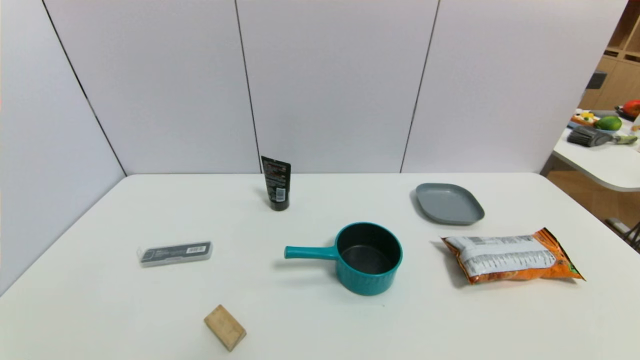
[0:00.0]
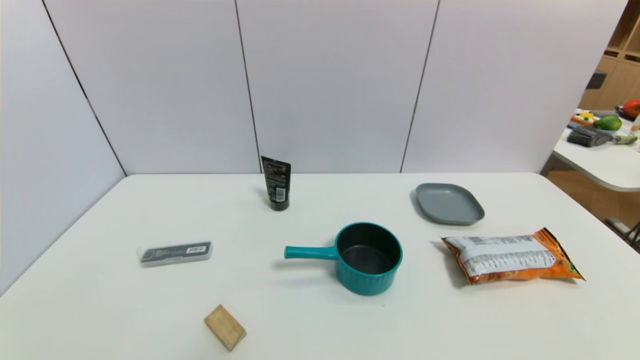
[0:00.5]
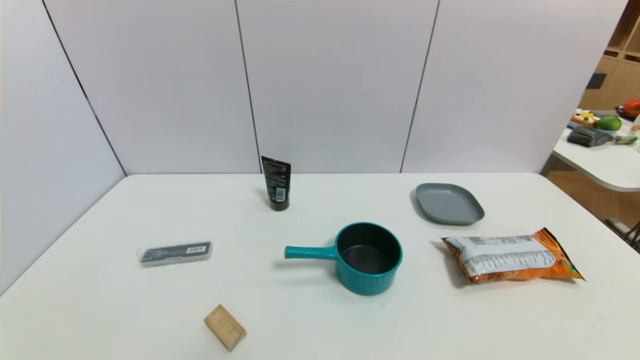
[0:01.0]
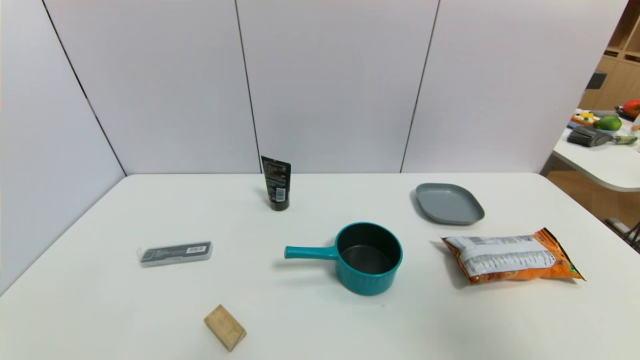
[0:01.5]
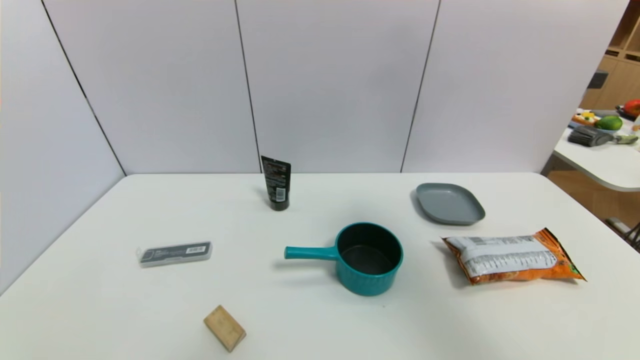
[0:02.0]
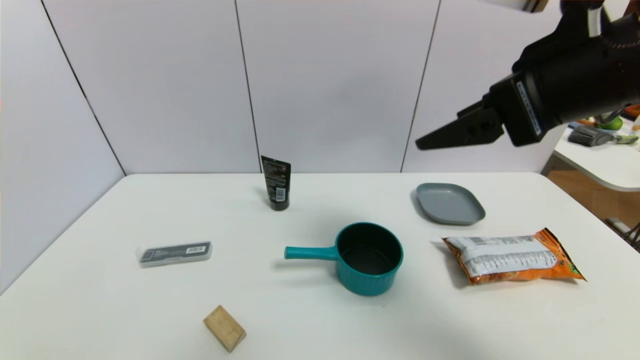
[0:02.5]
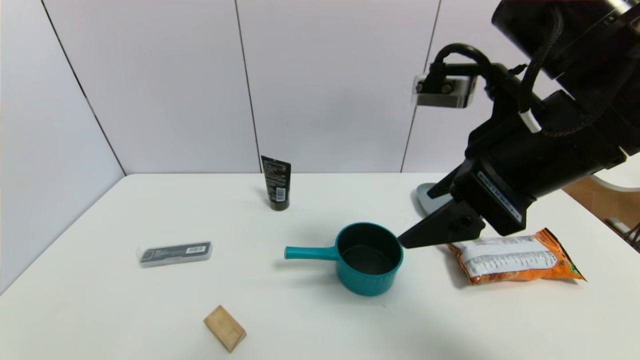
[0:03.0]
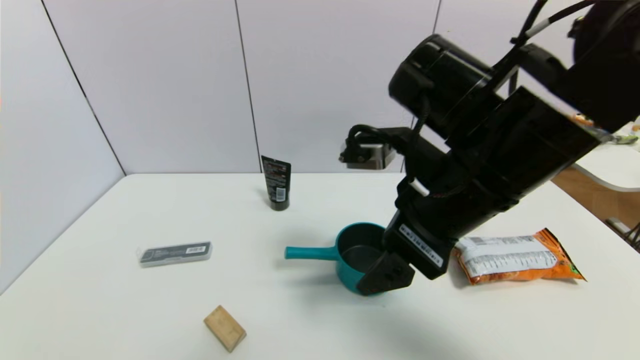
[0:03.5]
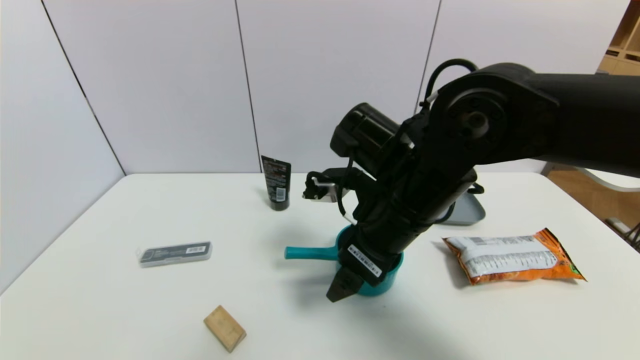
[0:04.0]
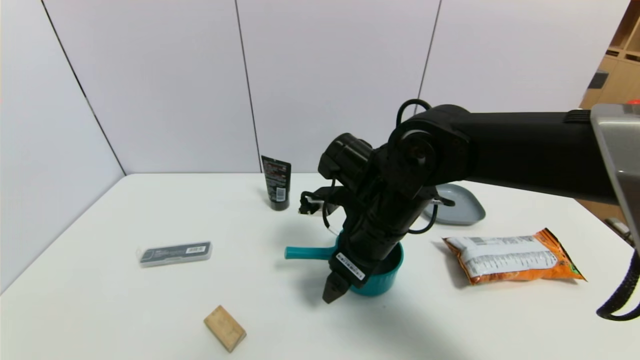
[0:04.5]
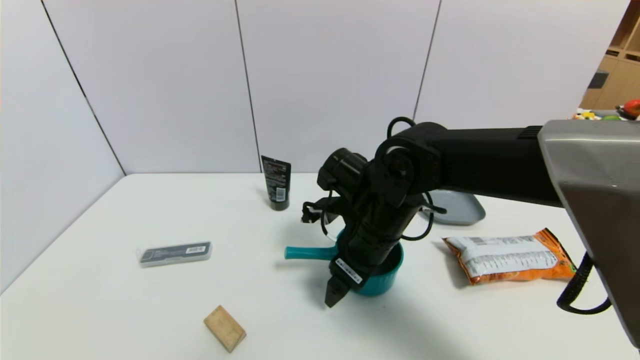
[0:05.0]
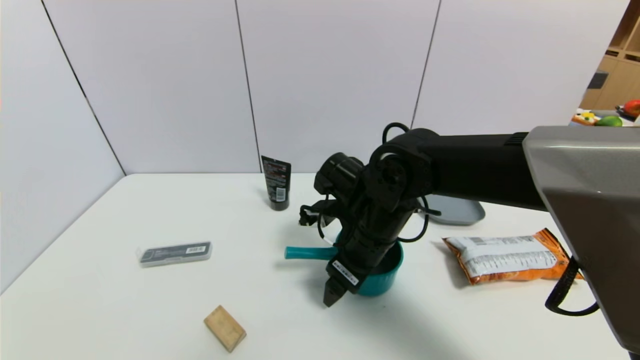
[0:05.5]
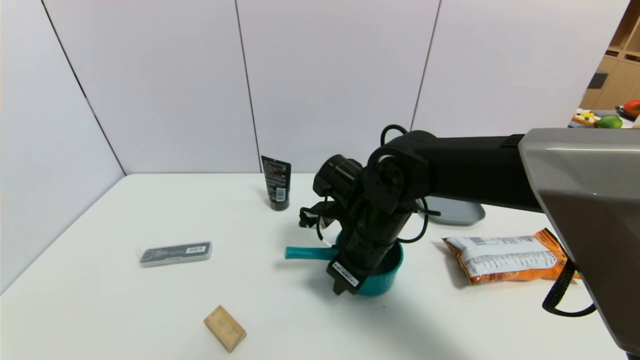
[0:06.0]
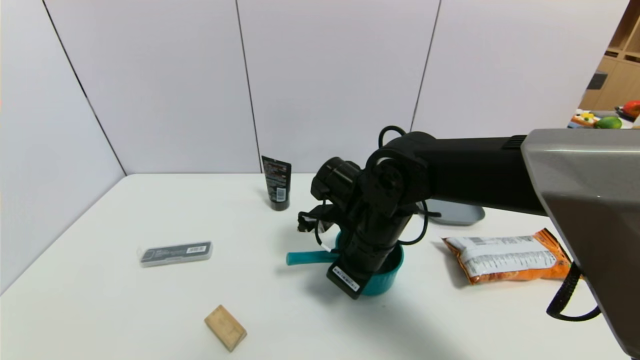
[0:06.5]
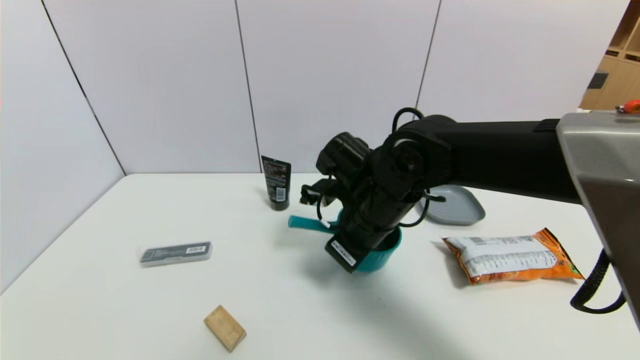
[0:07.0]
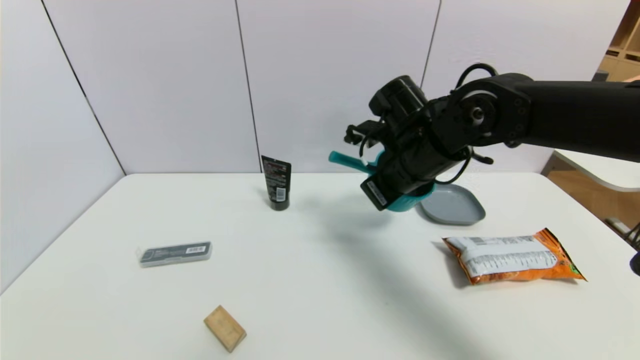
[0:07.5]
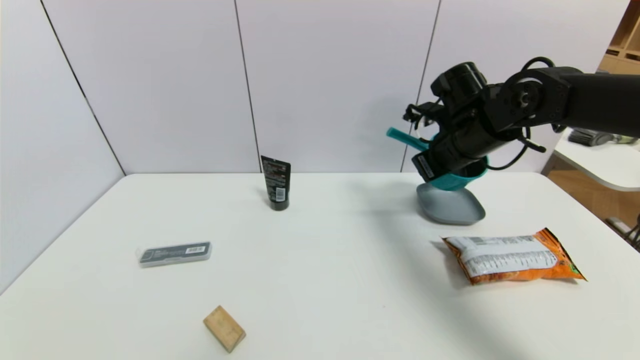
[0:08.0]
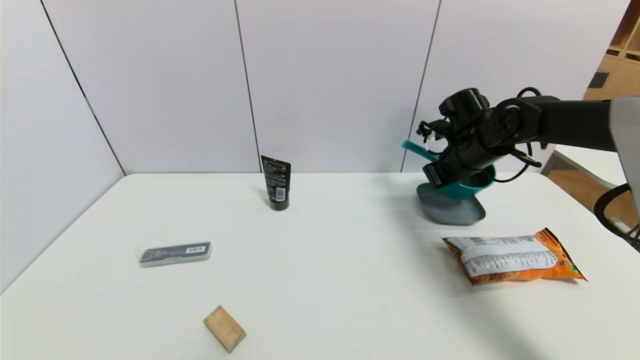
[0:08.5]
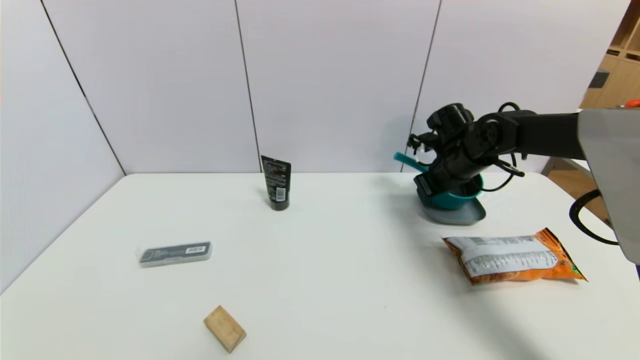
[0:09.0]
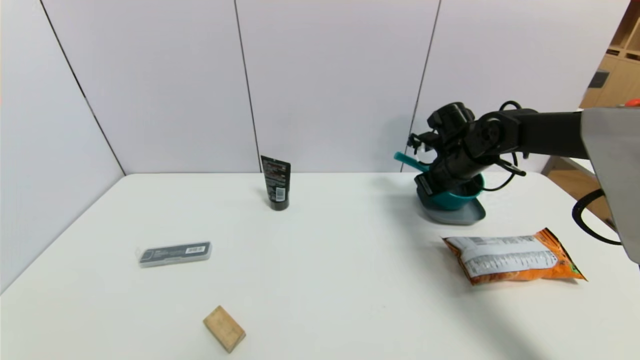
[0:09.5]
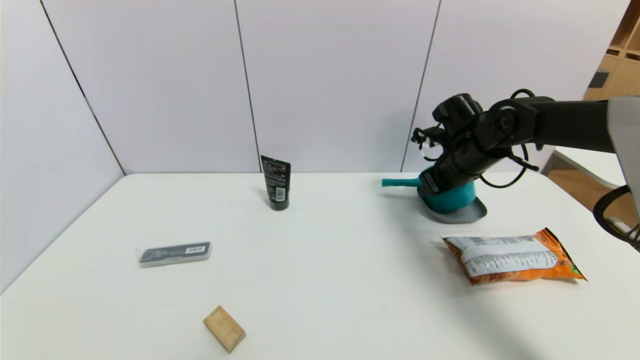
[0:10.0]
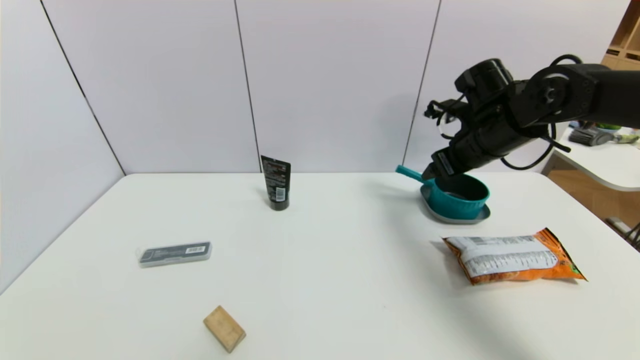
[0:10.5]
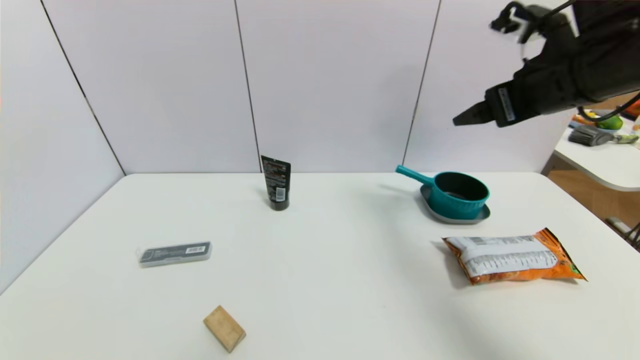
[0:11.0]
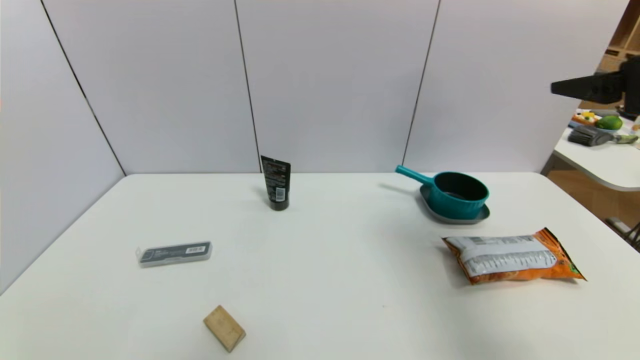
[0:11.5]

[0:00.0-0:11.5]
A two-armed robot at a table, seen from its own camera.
Task of the whole recording: use a gripper to pick the target object and place on the dish.
Step, 0:00.0 to 0:06.0: Grasp the blue pot with the right gripper.
Step, 0:06.5 to 0:10.0: Place the blue pot on the dish with the right gripper.
0:00.0 to 0:02.0: The right gripper shifts about 40 cm upward and forward.
0:02.0 to 0:04.0: The right gripper shifts about 30 cm downward and to the left.
0:04.0 to 0:06.0: The right gripper travels downward by about 5 cm, and closes its fingers.
0:06.0 to 0:07.5: The right gripper heads upward and to the right, covering about 10 cm.
0:07.5 to 0:09.5: The right gripper goes roughly 15 cm to the right, forward and downward.
0:09.5 to 0:11.5: The right gripper shifts approximately 30 cm backward and upward, and opens up.

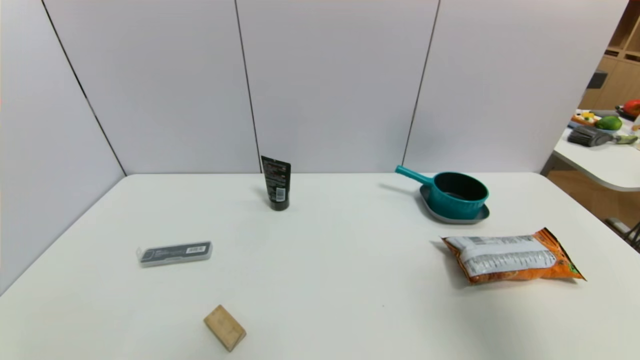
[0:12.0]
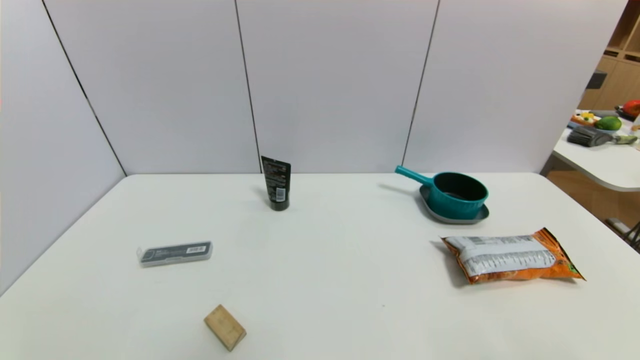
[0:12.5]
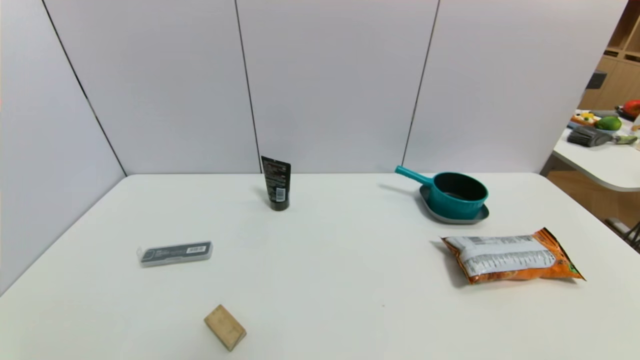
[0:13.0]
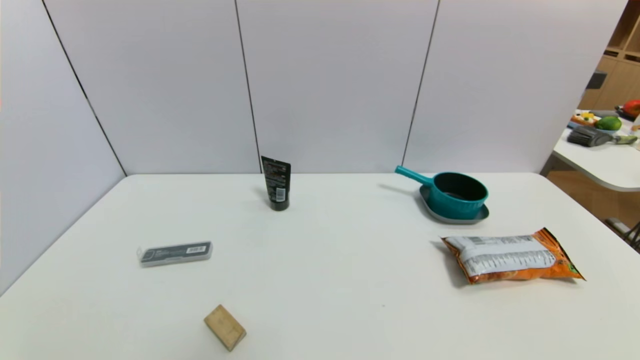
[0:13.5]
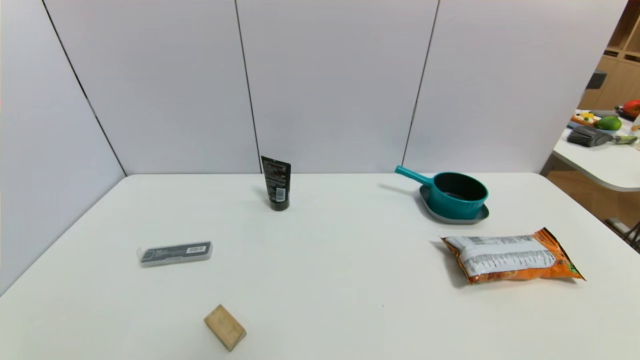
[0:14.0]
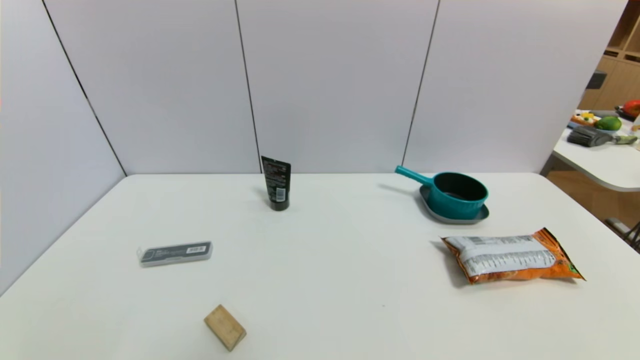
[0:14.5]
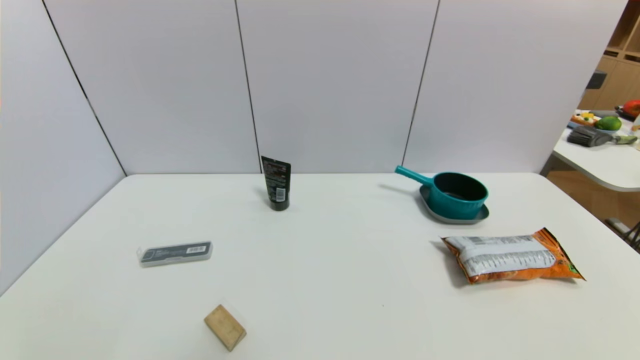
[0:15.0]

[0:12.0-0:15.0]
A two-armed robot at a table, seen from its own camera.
Task of the whole recording: use a gripper to pick the target object and place on the dish.
0:12.0 to 0:13.5: The right gripper heads downward, covering roughly 25 cm.
